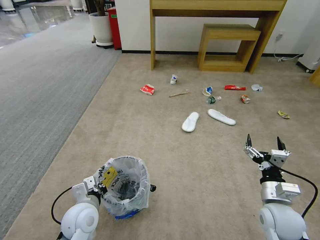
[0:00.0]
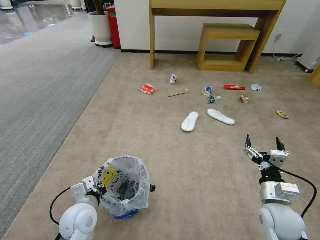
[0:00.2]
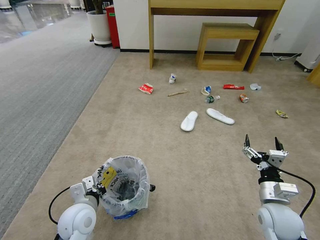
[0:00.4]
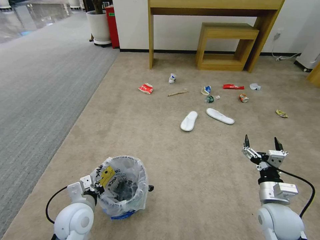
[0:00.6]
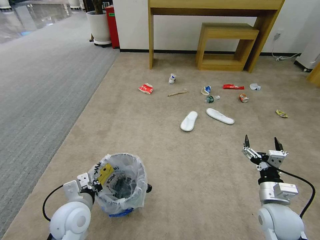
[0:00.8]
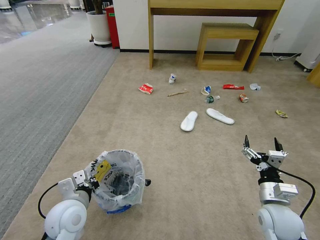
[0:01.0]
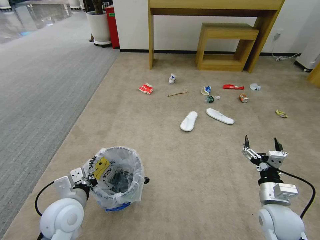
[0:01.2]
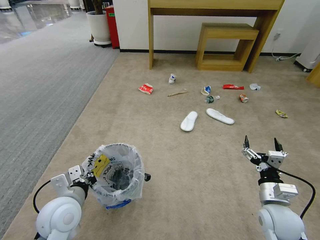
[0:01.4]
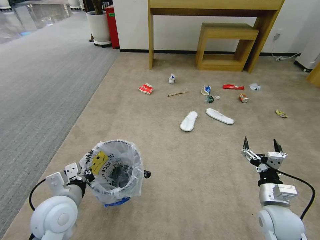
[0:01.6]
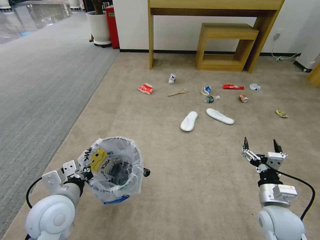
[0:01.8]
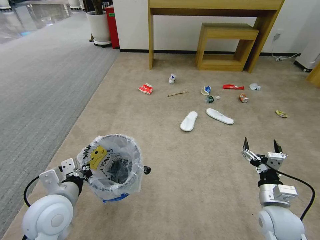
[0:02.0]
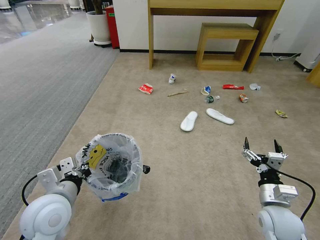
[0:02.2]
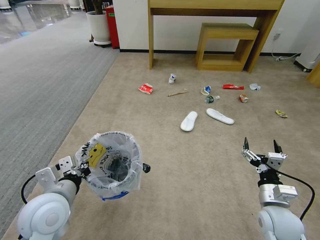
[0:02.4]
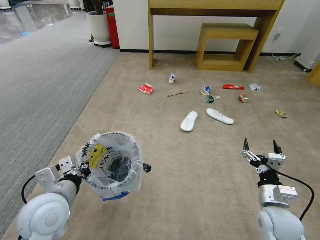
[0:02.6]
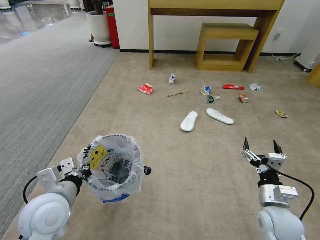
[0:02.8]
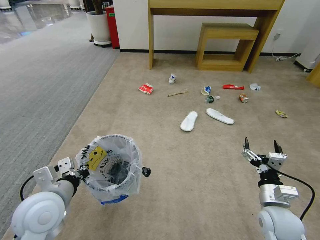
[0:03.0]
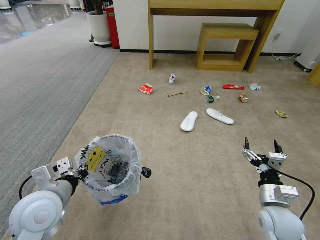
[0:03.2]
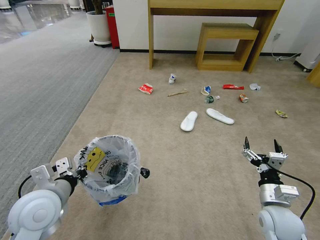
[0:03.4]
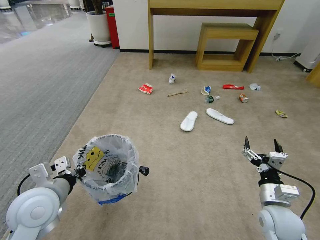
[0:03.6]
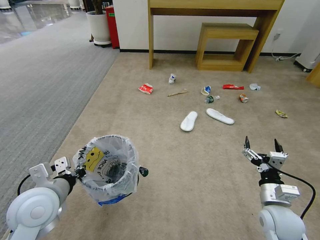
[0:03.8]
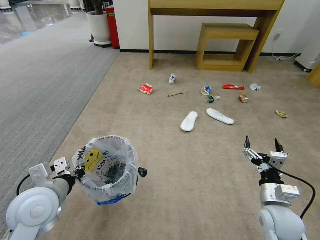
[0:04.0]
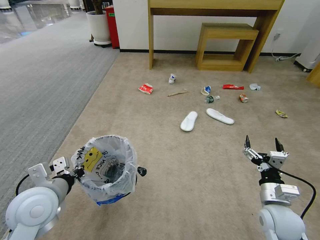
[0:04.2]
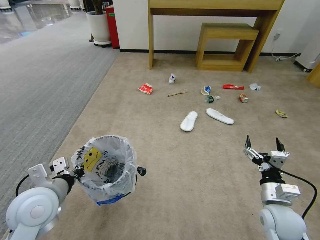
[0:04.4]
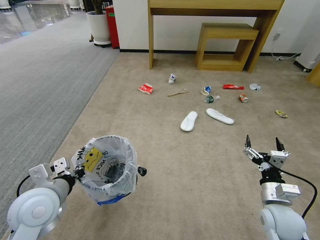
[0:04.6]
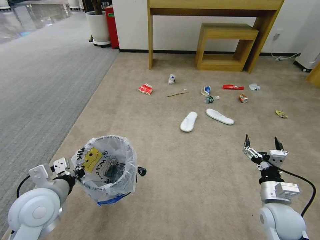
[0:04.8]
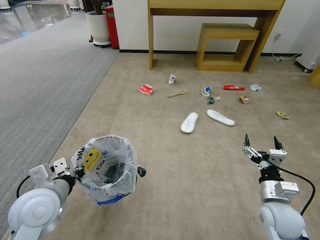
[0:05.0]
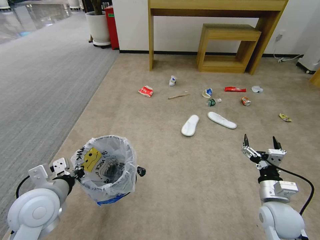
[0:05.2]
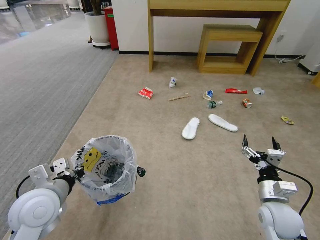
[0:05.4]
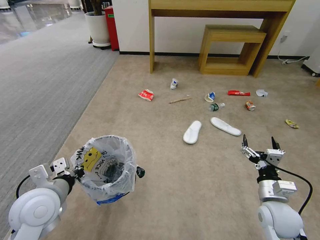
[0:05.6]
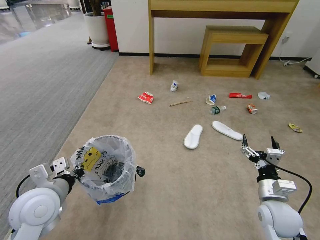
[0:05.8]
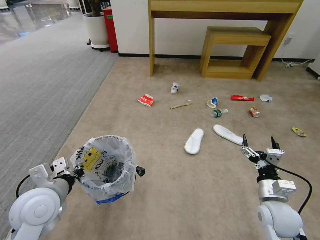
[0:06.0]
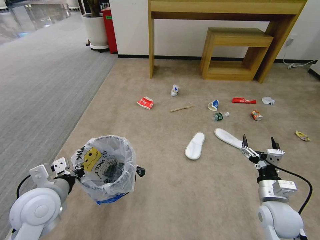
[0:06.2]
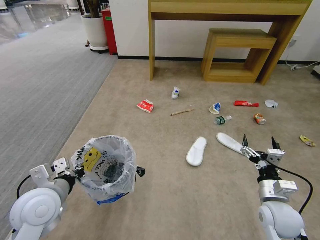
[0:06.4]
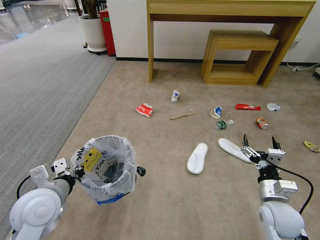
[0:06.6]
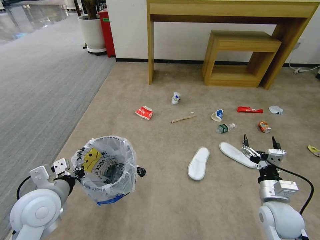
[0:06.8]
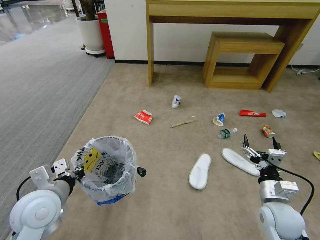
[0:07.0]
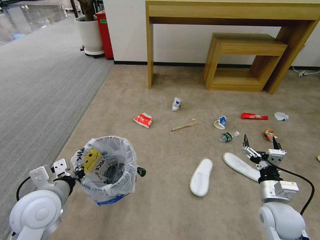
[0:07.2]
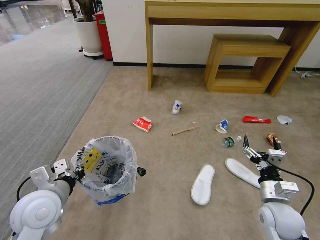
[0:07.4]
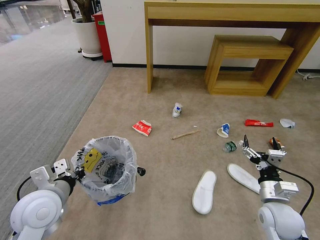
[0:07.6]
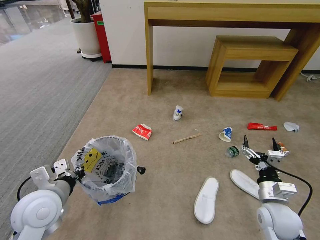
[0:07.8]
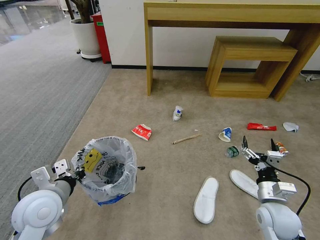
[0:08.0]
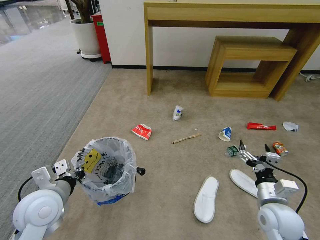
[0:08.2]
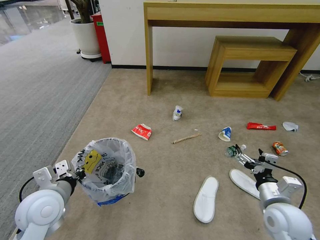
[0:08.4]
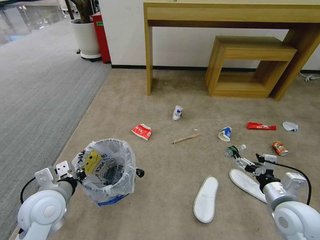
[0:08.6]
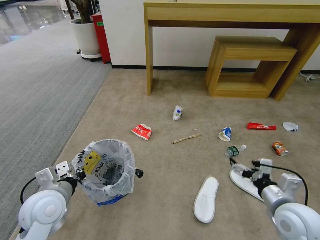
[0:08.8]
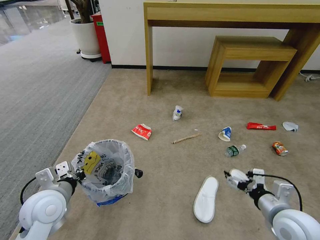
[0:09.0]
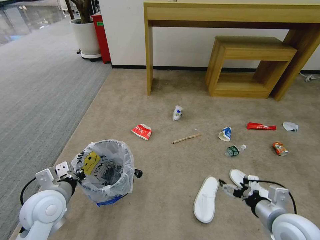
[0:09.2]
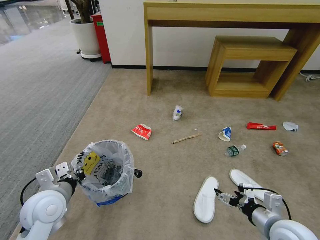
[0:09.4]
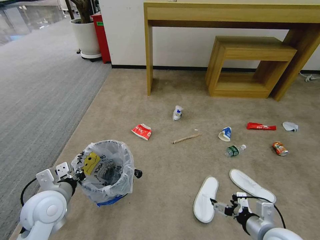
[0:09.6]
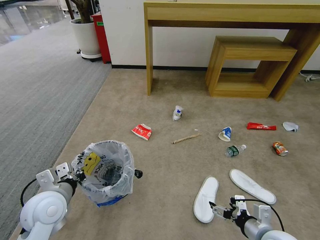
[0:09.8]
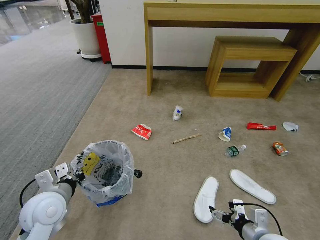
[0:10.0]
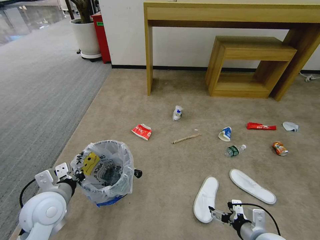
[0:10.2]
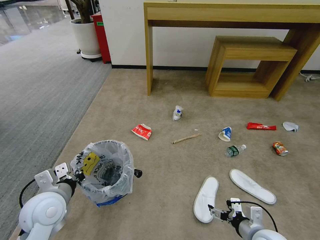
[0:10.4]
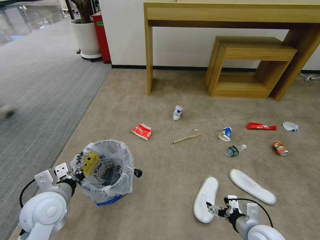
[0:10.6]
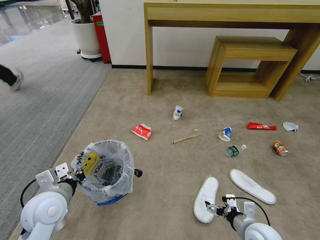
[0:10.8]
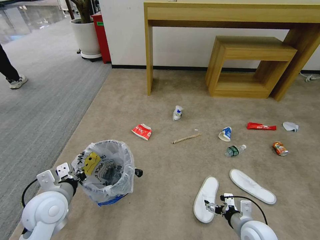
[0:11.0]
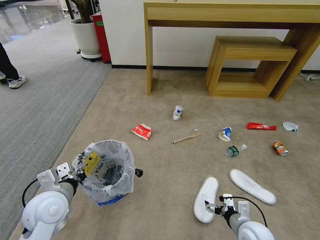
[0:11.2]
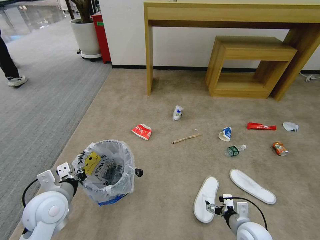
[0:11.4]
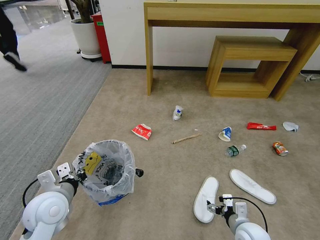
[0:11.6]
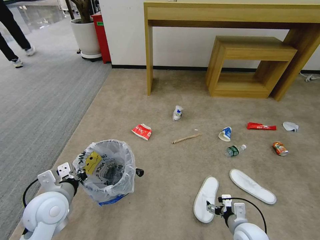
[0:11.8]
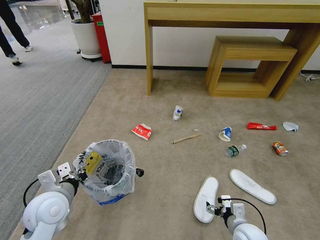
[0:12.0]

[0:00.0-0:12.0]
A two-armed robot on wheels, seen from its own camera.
Task of the whole recording: Pick up the trash bin and place the garbage on the floor into it.
0:00.0 to 0:01.6: The left gripper moves upward, about 10 cm.
0:01.6 to 0:04.4: The grippers stay close to where they were, moving slightly.
0:04.4 to 0:06.0: Both grippers stay about where they are.
0:07.6 to 0:09.0: The right gripper is displaced upward by approximately 5 cm.
0:09.0 to 0:10.4: The right gripper heads downward, covering roughly 10 cm.
0:10.4 to 0:12.0: The right gripper heads downward, covering roughly 5 cm.

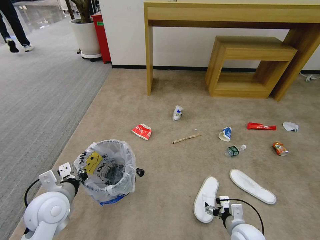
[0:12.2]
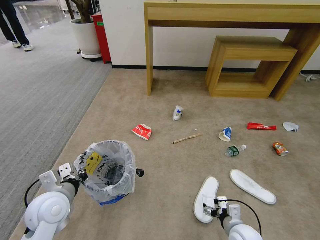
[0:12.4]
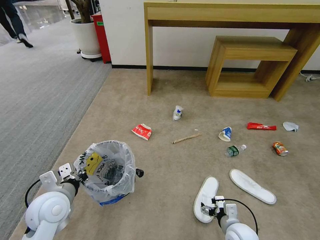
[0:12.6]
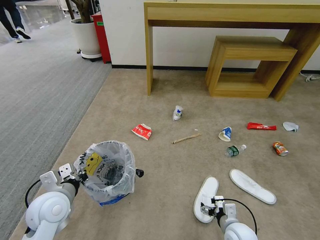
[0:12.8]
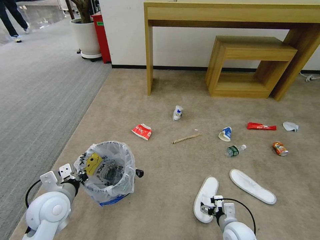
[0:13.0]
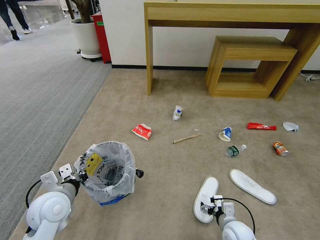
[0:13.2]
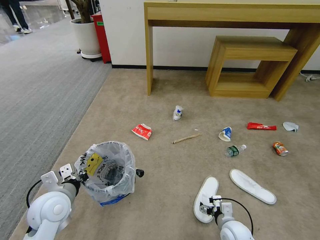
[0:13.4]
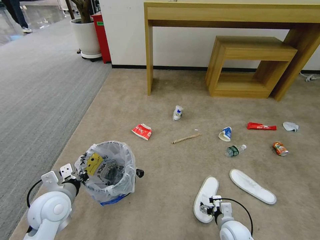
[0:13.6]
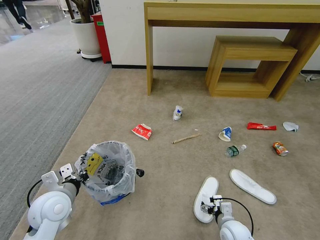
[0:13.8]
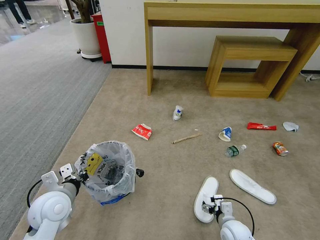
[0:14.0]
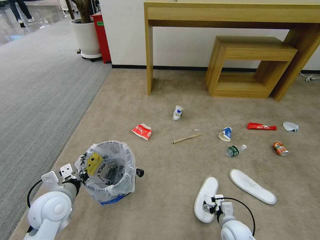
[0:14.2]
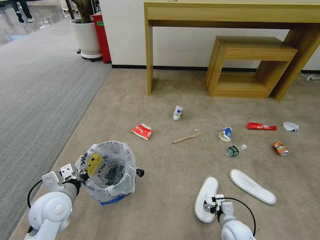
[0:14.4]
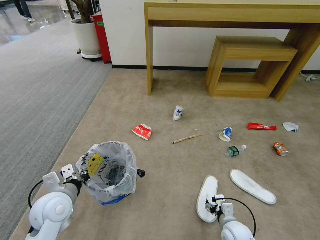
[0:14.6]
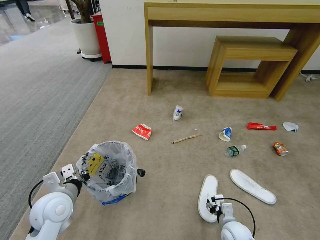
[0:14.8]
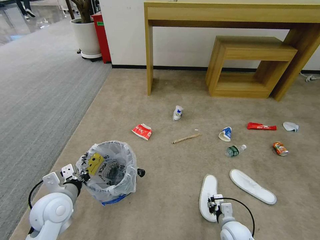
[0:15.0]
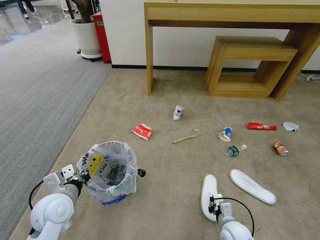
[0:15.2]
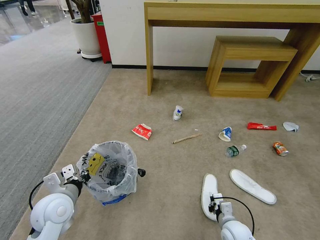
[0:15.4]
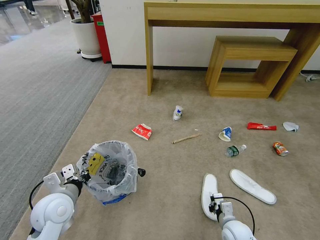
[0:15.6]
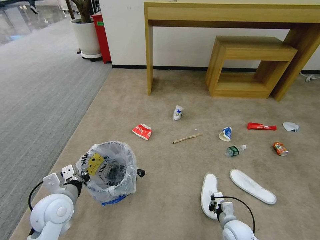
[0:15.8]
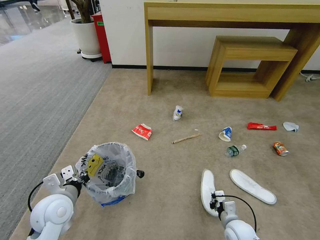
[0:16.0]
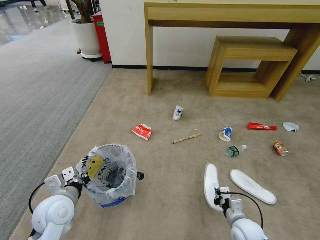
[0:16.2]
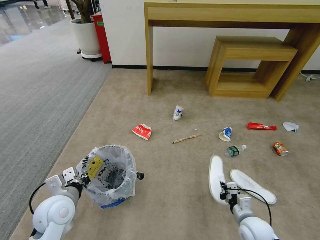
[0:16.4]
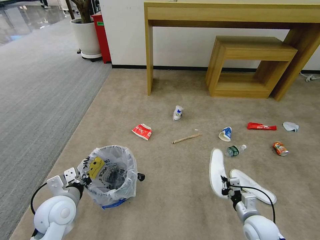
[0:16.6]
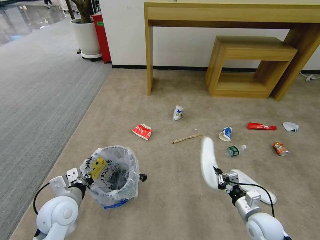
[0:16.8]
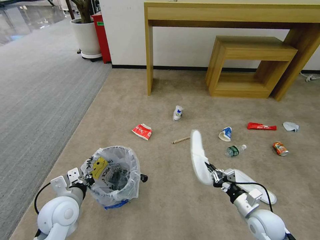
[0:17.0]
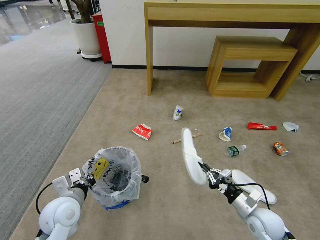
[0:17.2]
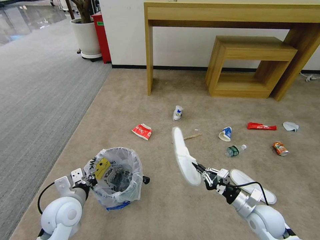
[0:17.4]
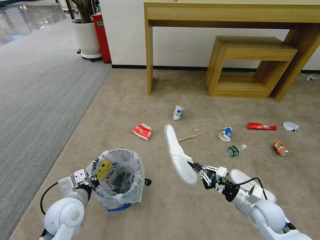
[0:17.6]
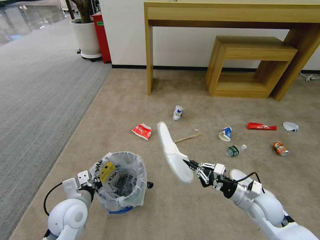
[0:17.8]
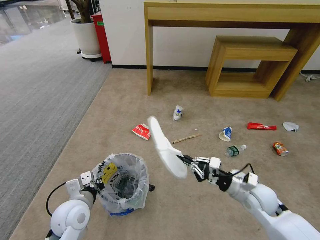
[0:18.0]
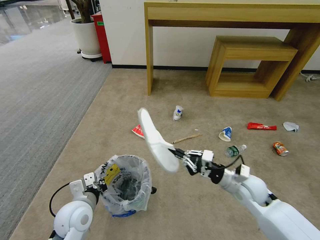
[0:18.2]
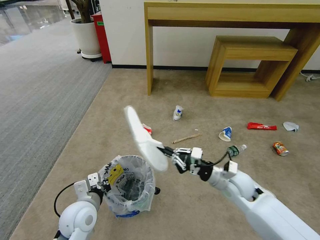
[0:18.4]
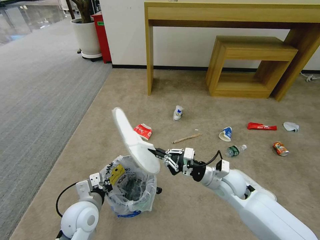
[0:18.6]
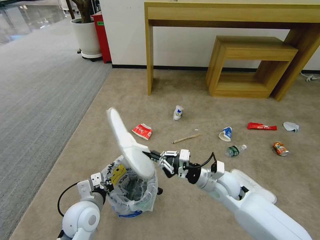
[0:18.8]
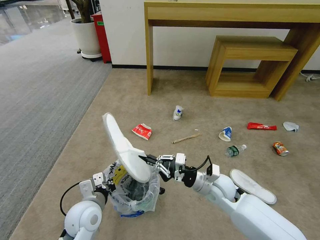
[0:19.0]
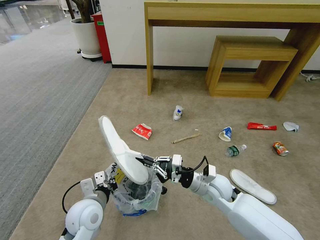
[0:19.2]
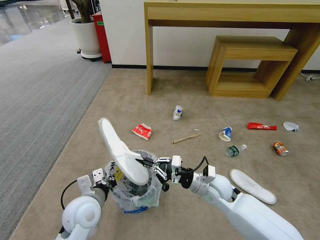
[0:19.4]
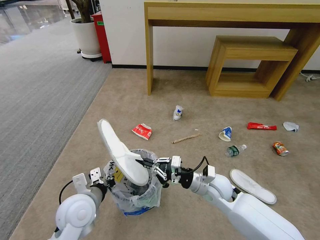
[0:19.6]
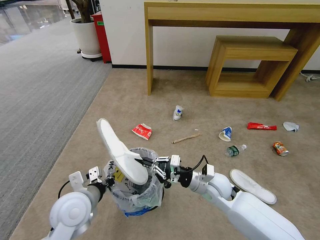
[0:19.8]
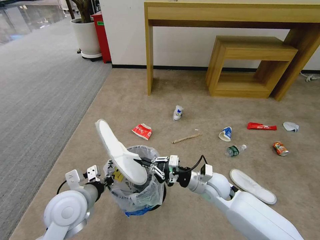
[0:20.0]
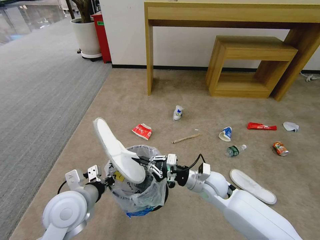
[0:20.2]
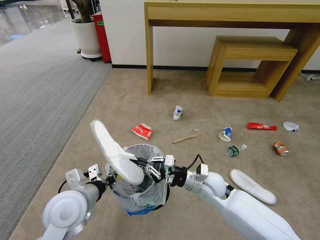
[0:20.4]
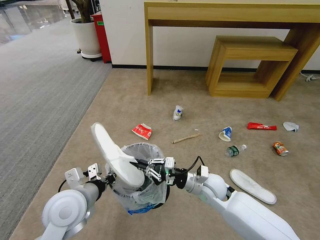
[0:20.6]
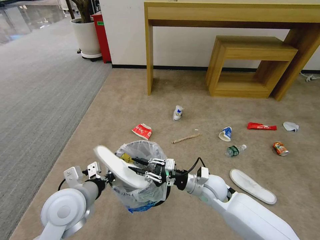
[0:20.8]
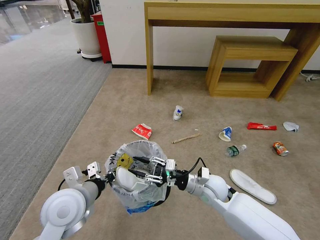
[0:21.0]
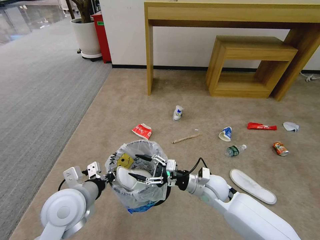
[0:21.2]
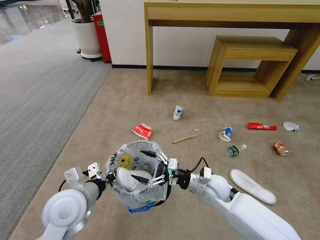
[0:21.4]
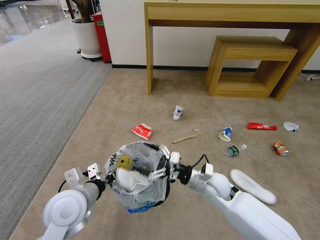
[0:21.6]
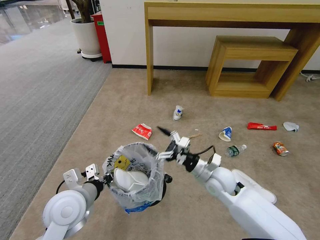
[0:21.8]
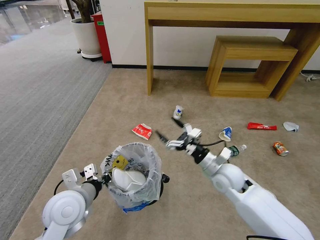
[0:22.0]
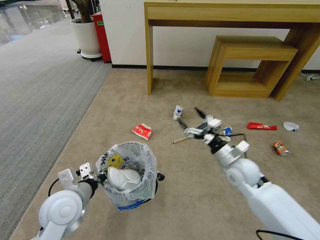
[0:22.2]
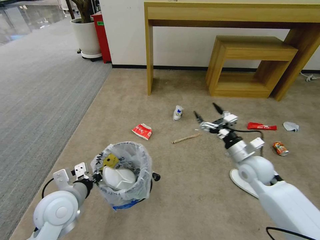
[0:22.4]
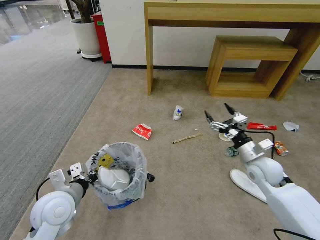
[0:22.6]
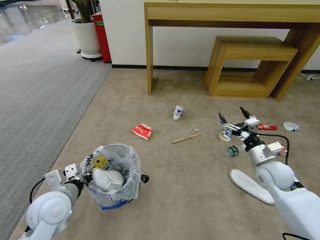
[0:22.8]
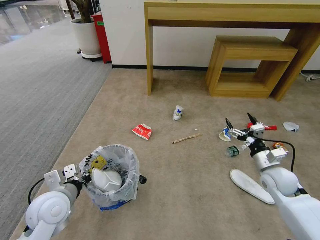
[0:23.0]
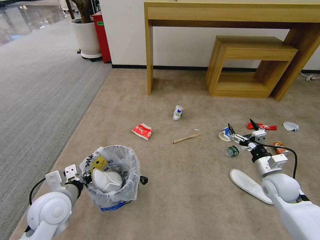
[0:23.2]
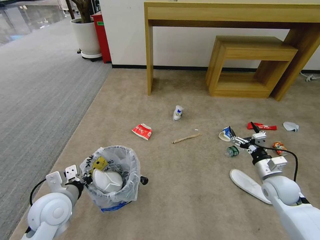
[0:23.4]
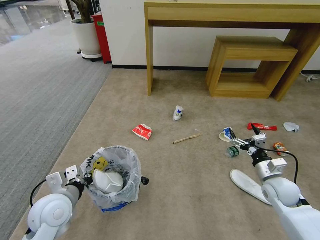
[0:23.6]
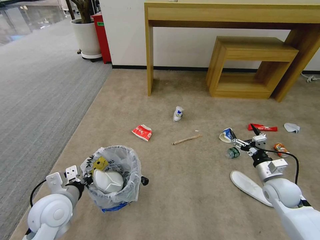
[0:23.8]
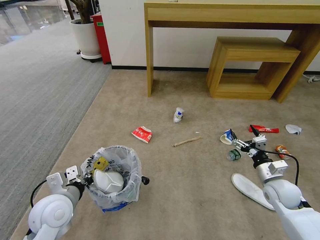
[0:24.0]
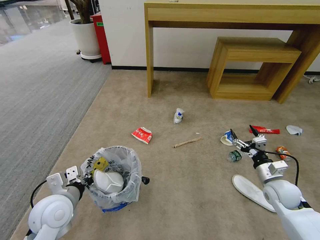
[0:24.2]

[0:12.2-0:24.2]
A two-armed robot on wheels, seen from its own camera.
Task of the whole recording: Pick up the trash bin and place the garbage on the floor into it.
0:12.2 to 0:13.8: The right gripper moves roughly 5 cm.
0:13.8 to 0:15.2: The right gripper closes its fingers.
0:15.2 to 0:16.6: The right gripper goes some 10 cm to the right and upward.
0:16.6 to 0:18.2: The right gripper moves upward and forward, approximately 15 cm, while the left gripper shifts by some 5 cm.
0:18.2 to 0:19.8: The right gripper travels to the left by approximately 10 cm; the left gripper moves upward, roughly 5 cm.
0:19.8 to 0:21.2: The right gripper opens.
0:21.2 to 0:22.6: The left gripper changes place by approximately 5 cm; the right gripper moves to the right, some 15 cm.
0:22.6 to 0:24.2: The right gripper goes some 10 cm downward and to the right.
